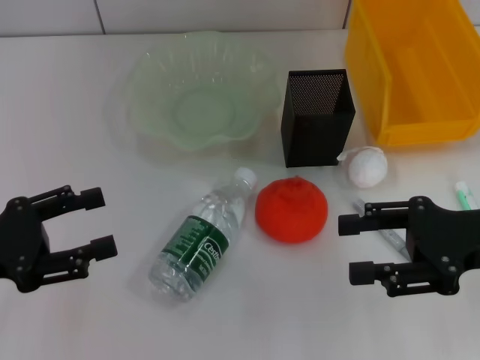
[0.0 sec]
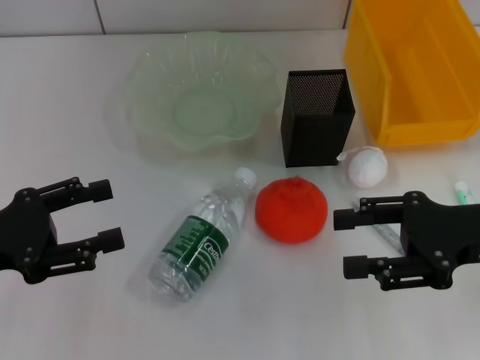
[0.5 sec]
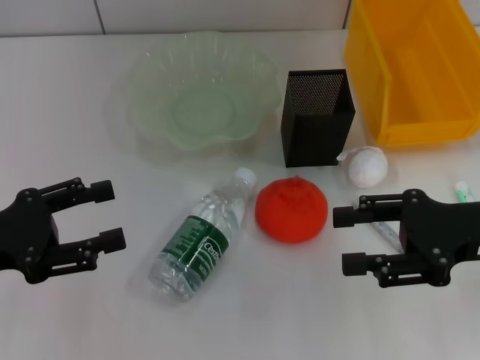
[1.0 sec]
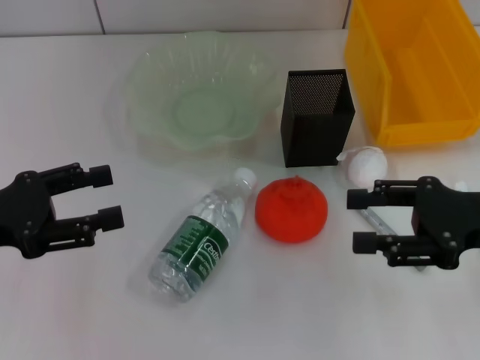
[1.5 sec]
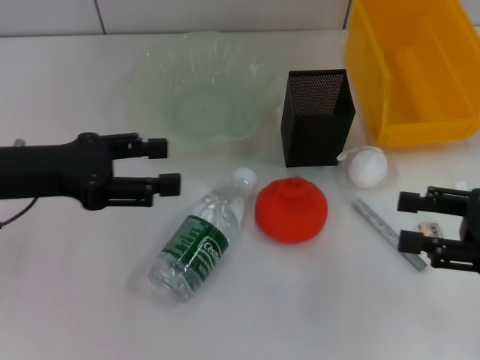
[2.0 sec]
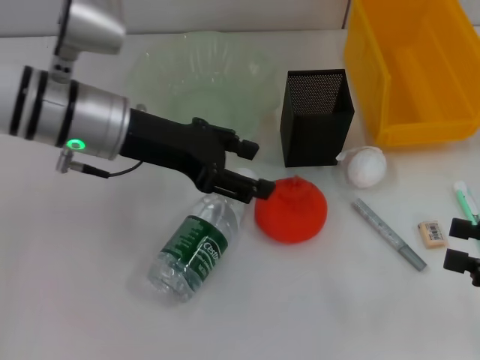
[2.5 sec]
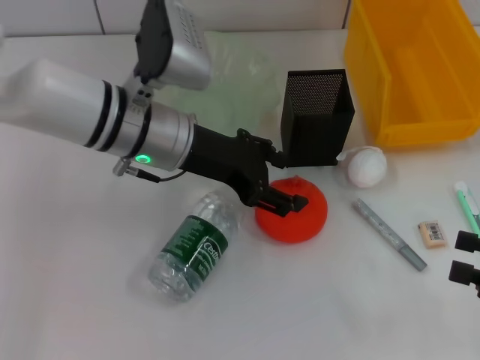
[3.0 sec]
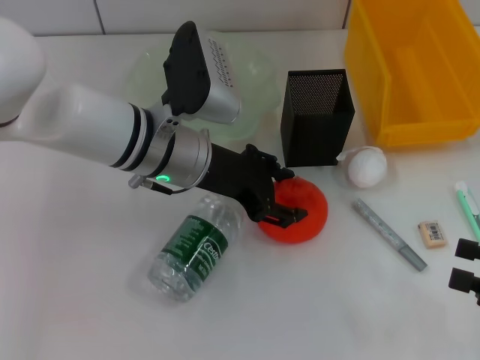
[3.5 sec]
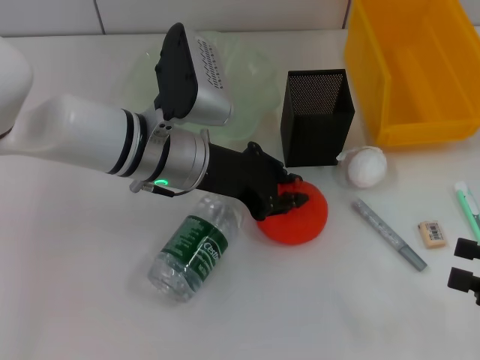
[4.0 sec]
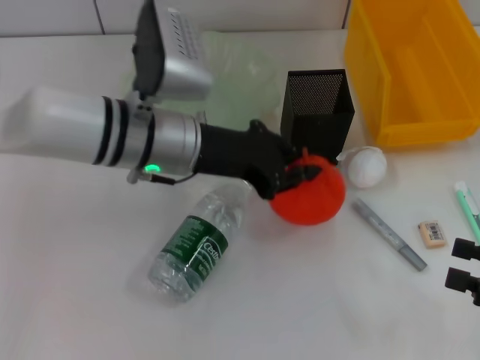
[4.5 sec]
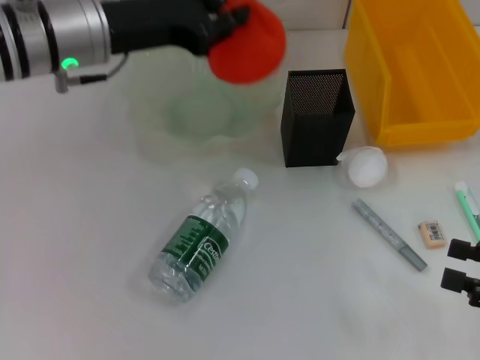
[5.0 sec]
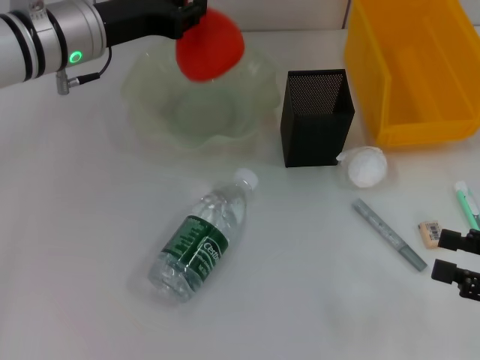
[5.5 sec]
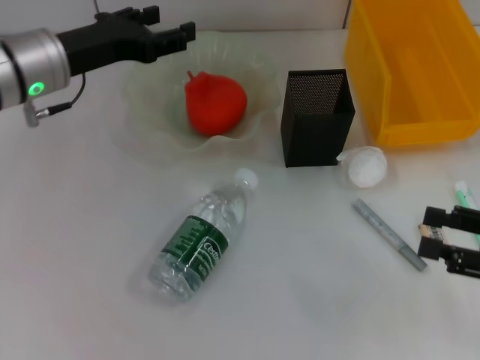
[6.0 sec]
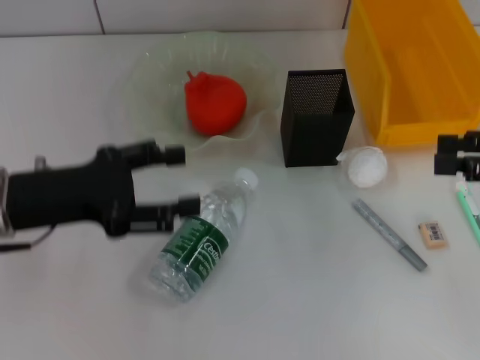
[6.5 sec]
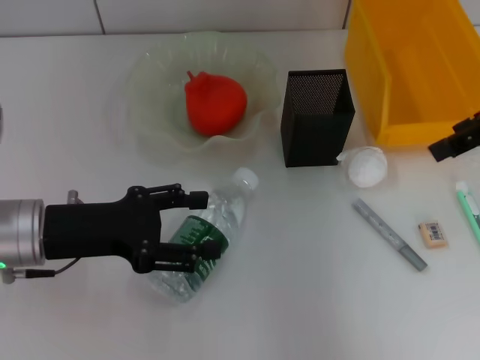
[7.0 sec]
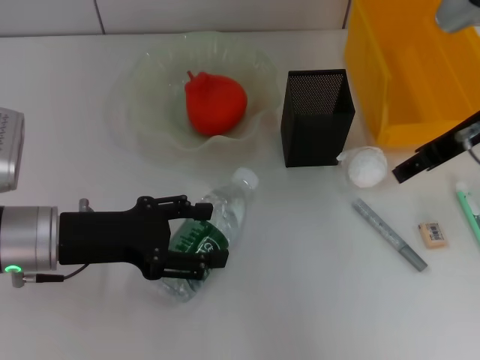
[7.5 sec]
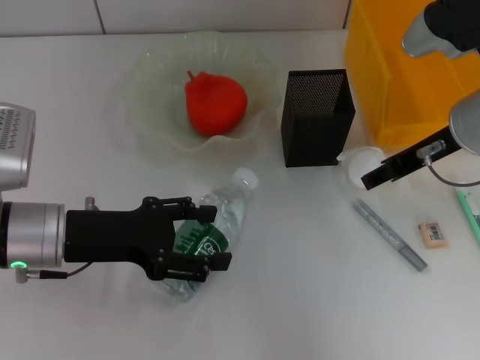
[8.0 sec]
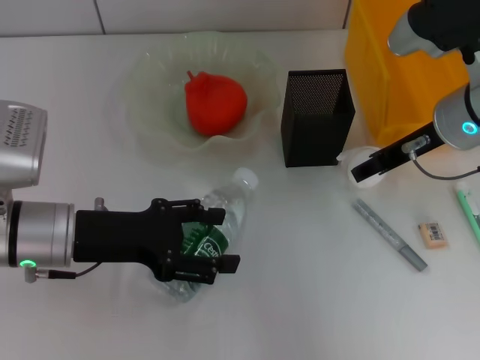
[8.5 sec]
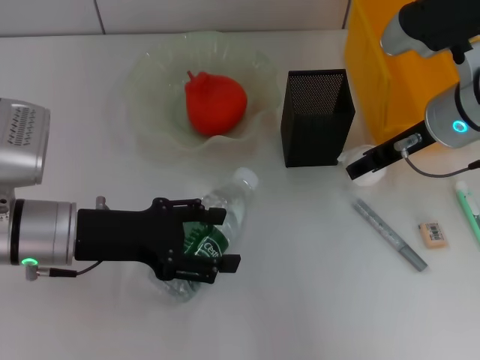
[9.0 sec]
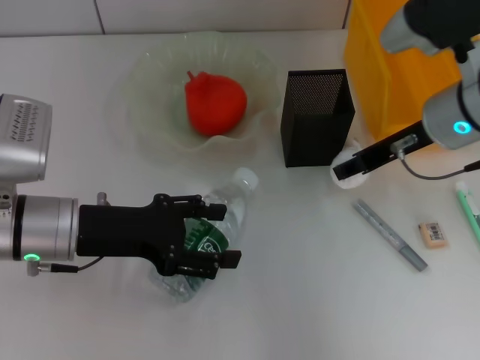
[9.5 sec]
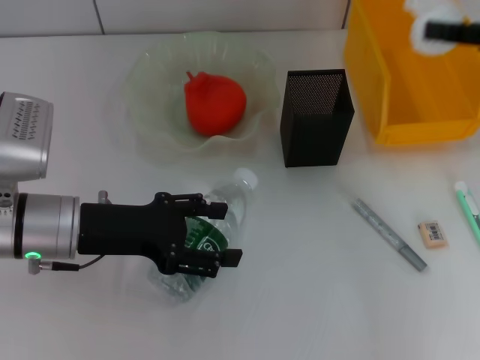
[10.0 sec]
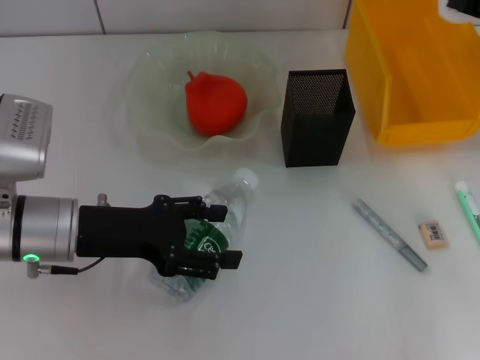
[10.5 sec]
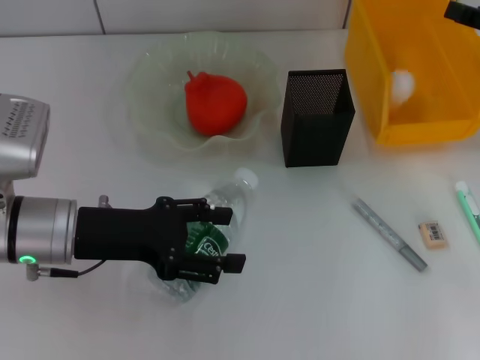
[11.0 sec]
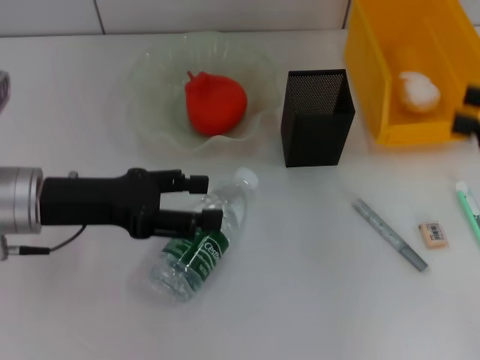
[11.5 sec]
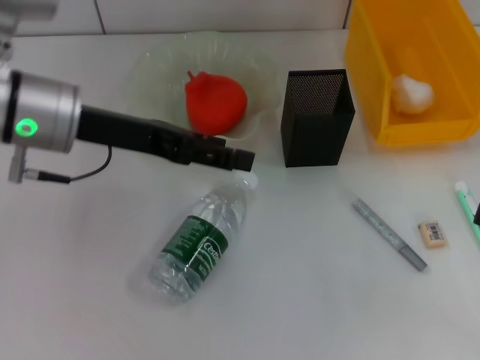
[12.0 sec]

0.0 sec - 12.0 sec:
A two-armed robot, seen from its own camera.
Step, 0.0 sec - 4.0 sec: Grab the orange with the left hand.
Step, 4.5 sec - 5.5 sec: Place the orange into the fruit bowl with the left hand.
Step, 6.5 sec - 9.0 sec: Grab the paper ball with the right hand.
Step, 9.5 sec - 10.5 sec: Place the paper ball into the trash can with the right hand.
0.0 sec - 2.0 sec: The right gripper changes place by approximately 5 cm, while the left gripper travels forward and to the right by some 10 cm.
2.0 sec - 4.0 sec: The left gripper shifts roughly 15 cm to the right; the right gripper goes approximately 5 cm backward.
4.0 sec - 6.0 sec: The left gripper moves to the left, some 10 cm, and closes, then opens again.
6.0 sec - 8.0 sec: The left gripper moves backward and downward, about 15 cm. The right gripper heads forward, to the left and upward, covering approximately 20 cm.
8.0 sec - 10.0 sec: The right gripper moves to the right and upward, approximately 10 cm.
10.0 sec - 12.0 sec: The right gripper moves backward, downward and to the right, about 15 cm. Meanwhile the left gripper travels upward and forward by about 10 cm.

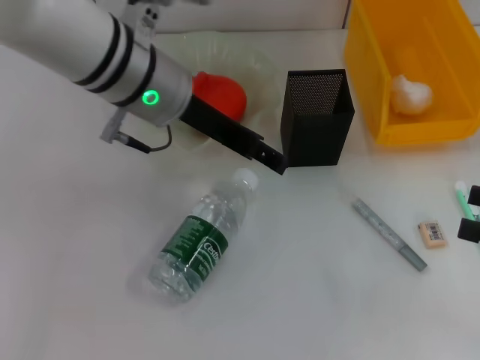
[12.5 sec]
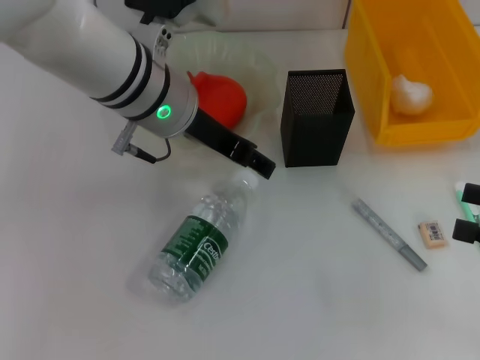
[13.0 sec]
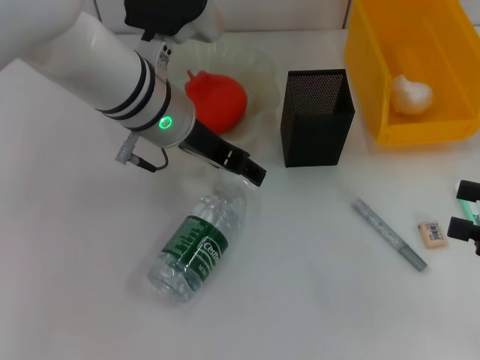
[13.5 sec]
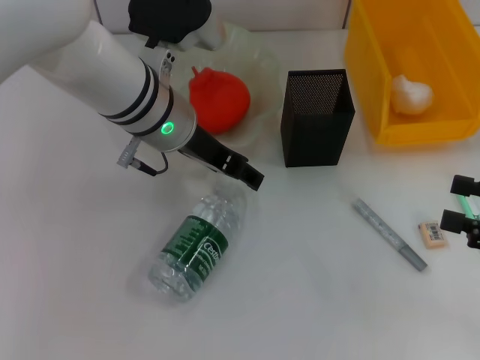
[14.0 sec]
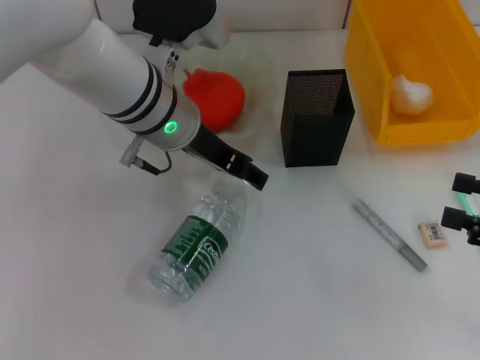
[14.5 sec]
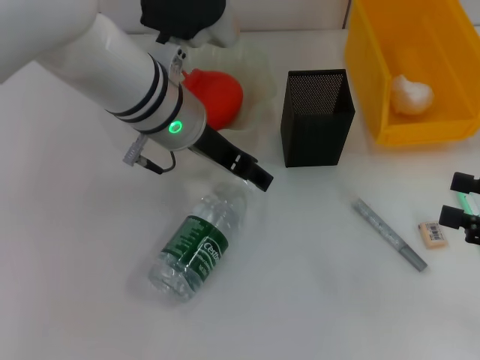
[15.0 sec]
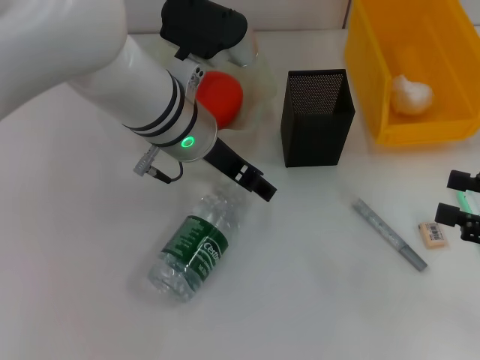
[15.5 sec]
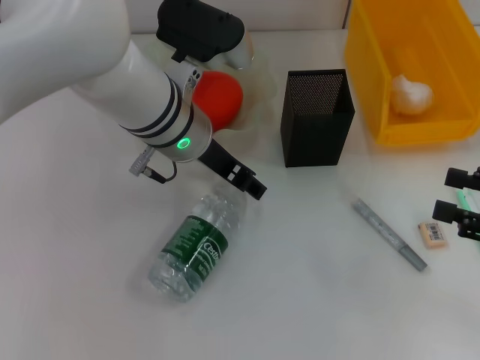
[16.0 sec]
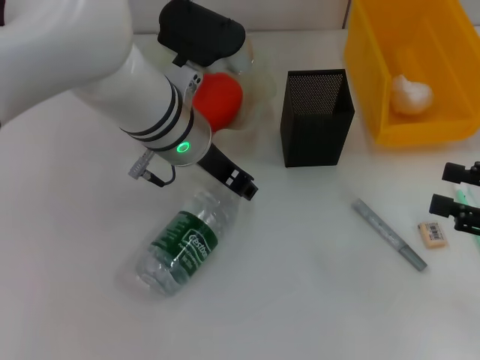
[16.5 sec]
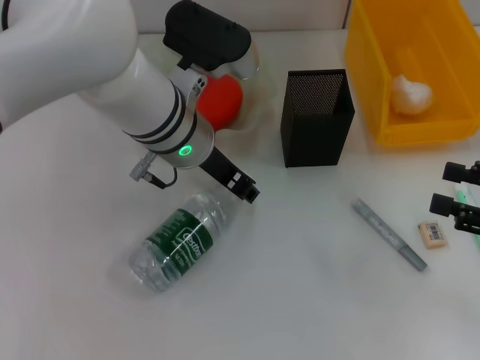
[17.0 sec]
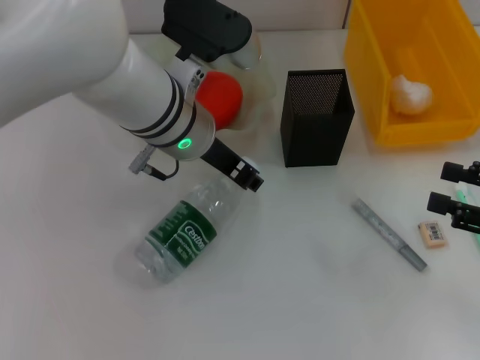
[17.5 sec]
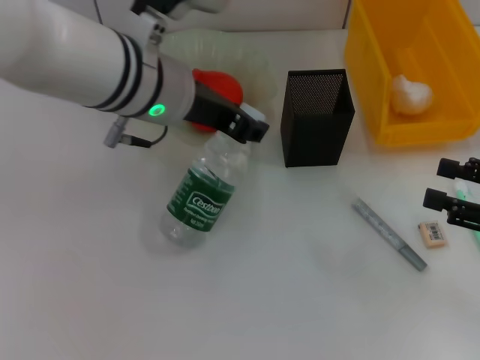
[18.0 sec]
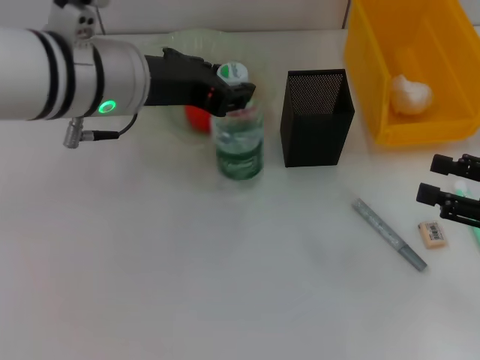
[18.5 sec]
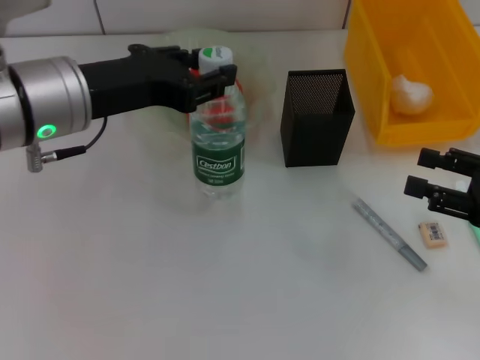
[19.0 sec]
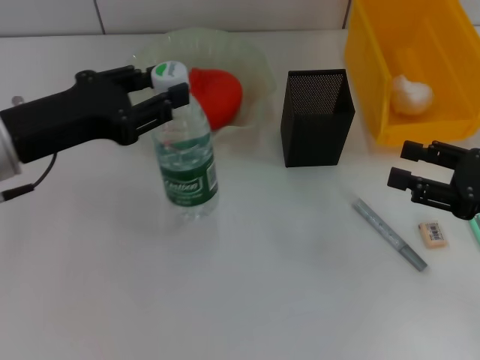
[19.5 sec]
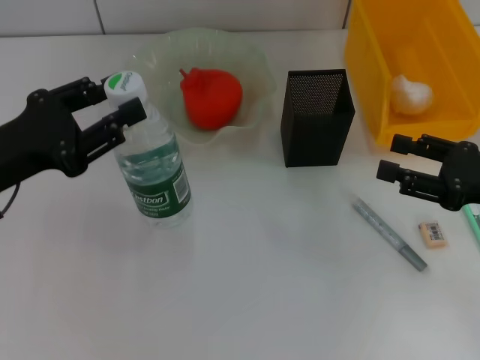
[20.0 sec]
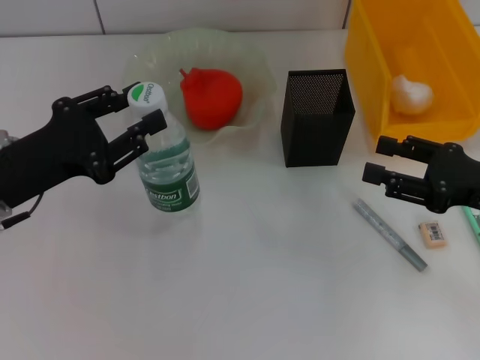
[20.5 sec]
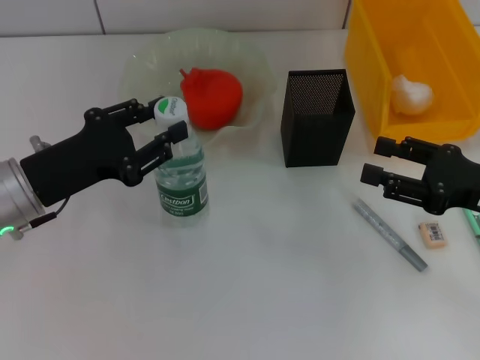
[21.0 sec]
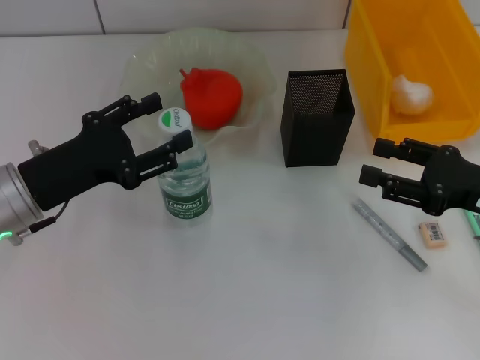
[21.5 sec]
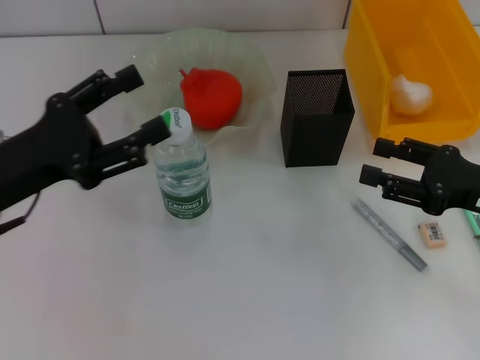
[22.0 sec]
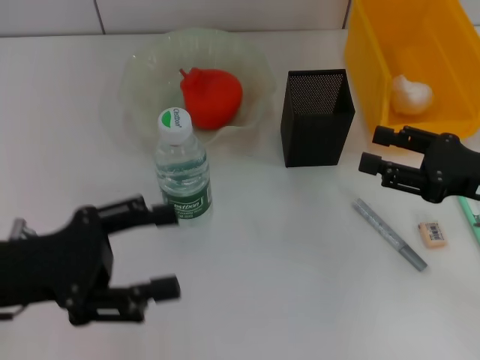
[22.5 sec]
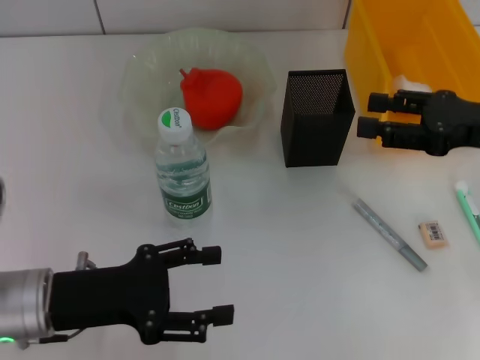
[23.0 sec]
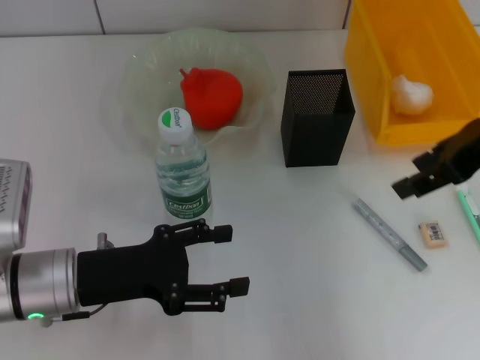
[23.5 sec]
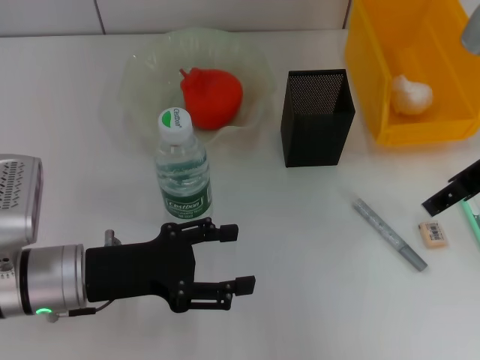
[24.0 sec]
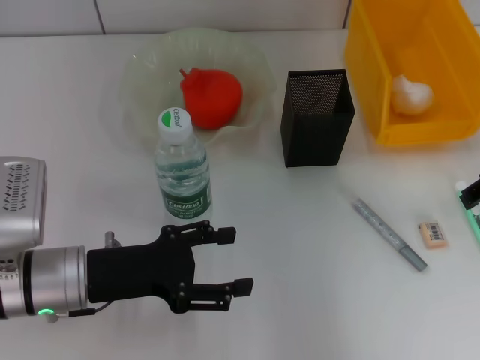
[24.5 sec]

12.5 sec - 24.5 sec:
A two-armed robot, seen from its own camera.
Step, 12.5 sec - 17.0 sec: Grab the water bottle with the left hand.
Step, 17.5 sec - 21.5 sec: Place the water bottle on the table with the left hand.
12.5 sec - 14.5 sec: The grippers stay close to where they were, moving slightly.
14.5 sec - 16.5 sec: The left gripper closes up.
16.5 sec - 18.5 sec: The left gripper moves upward and to the left, roughly 10 cm.
18.5 sec - 20.5 sec: The right gripper ends up some 5 cm from where it was. Meanwhile the left gripper travels to the left, downward and backward by some 20 cm.
20.5 sec - 22.5 sec: The left gripper travels backward by roughly 5 cm, and opens up.
22.5 sec - 24.5 sec: The left gripper goes roughly 10 cm to the right and downward, while the right gripper is displaced upward and forward by about 10 cm.

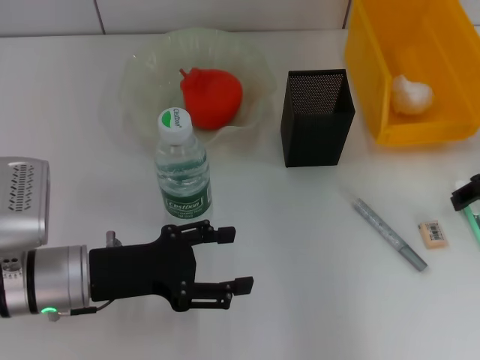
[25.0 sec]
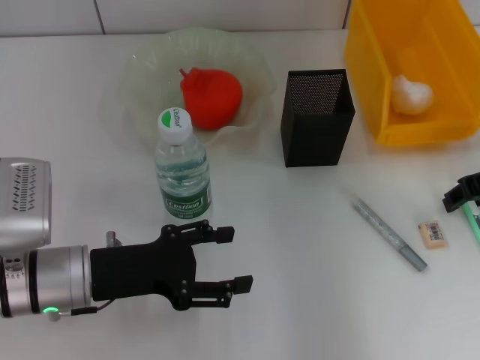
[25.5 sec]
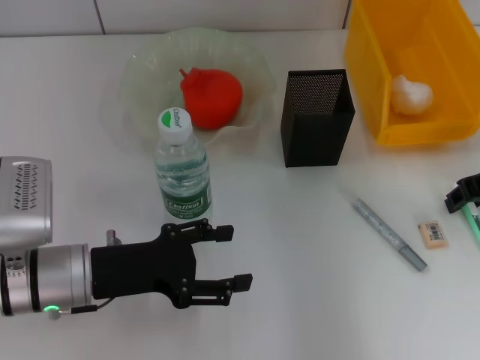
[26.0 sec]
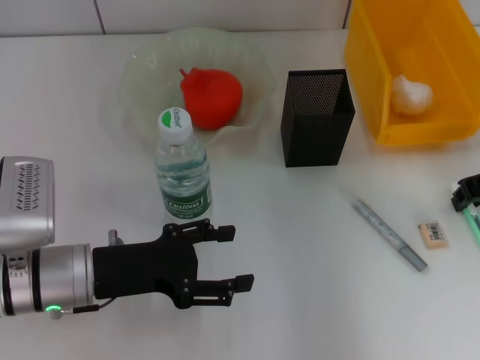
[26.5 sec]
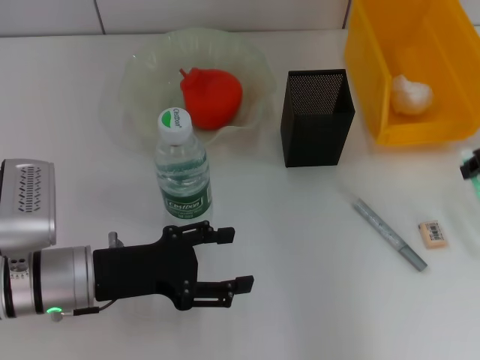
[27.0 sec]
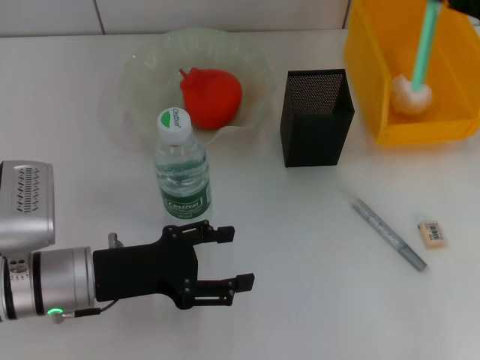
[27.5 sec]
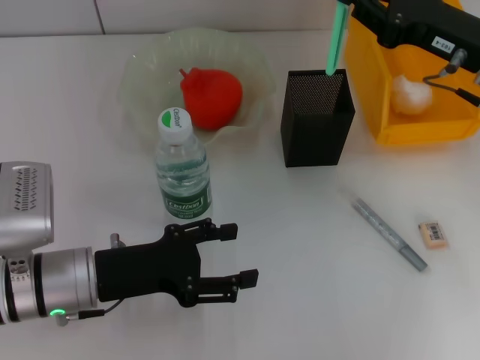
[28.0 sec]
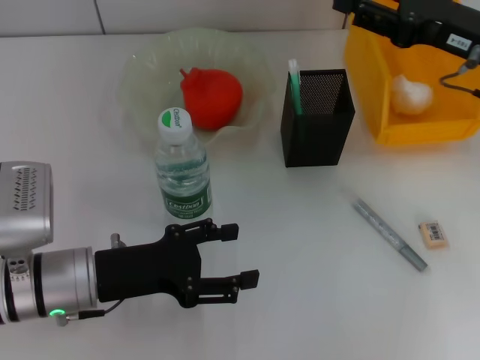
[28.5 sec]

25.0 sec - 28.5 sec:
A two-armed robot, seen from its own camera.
Step, 27.0 sec - 28.0 sec: Place the blue utility knife into the pen holder with the right hand.
25.0 sec - 27.0 sec: The right gripper closes its fingers.
27.0 sec - 28.5 sec: The right gripper opens up.
